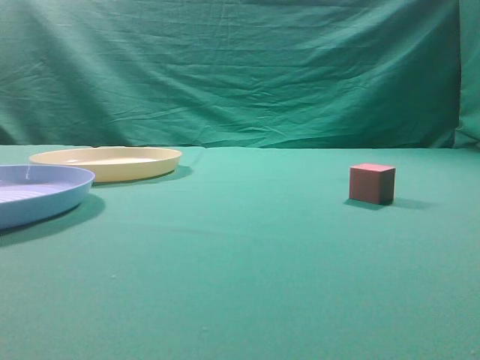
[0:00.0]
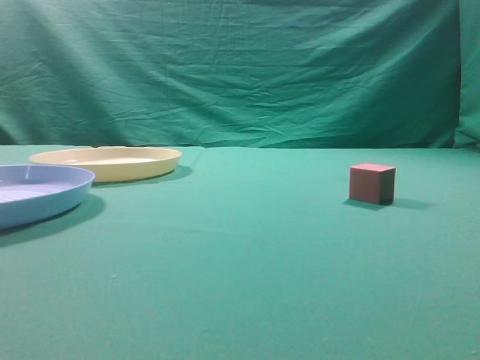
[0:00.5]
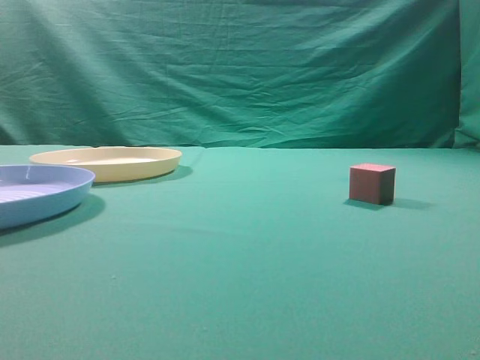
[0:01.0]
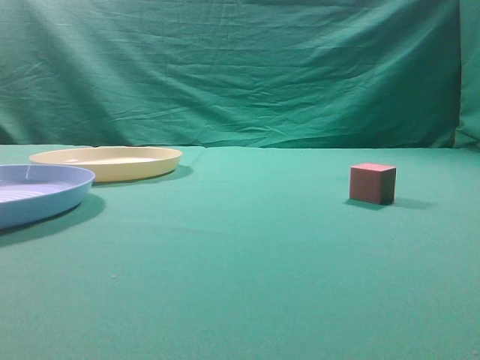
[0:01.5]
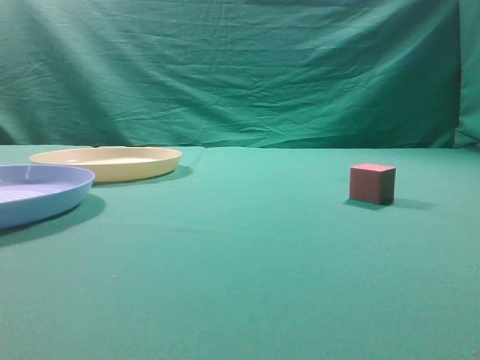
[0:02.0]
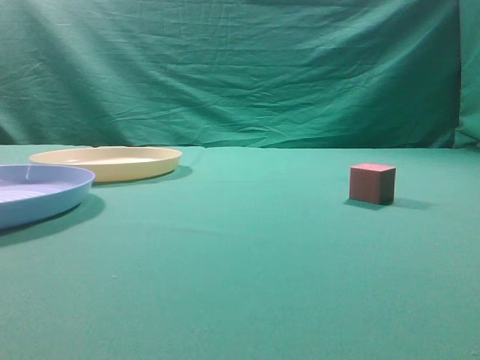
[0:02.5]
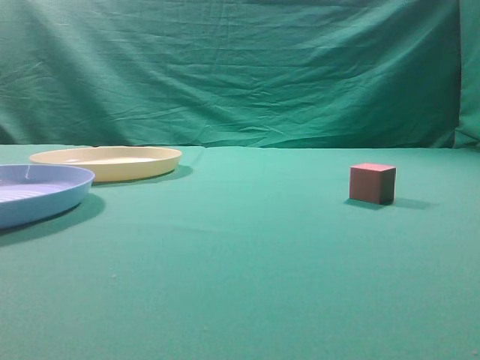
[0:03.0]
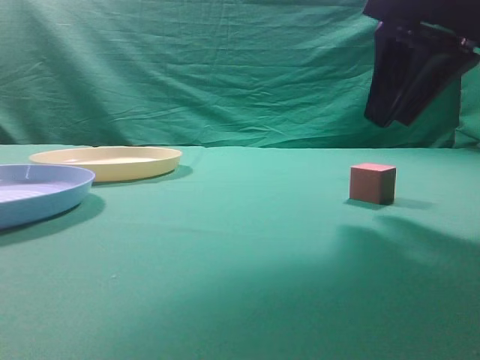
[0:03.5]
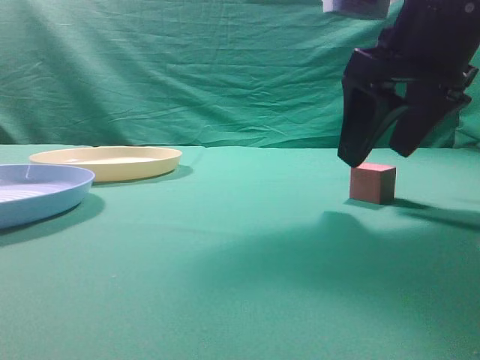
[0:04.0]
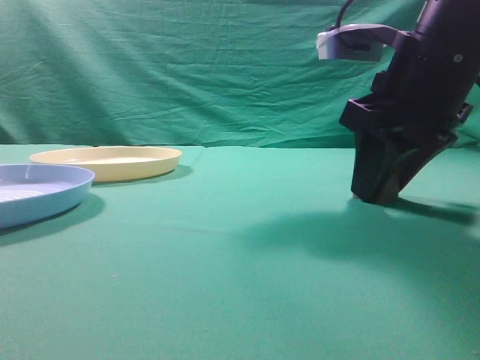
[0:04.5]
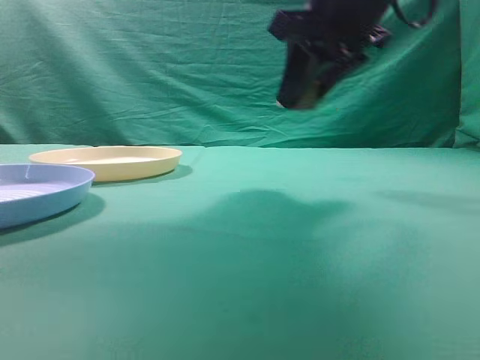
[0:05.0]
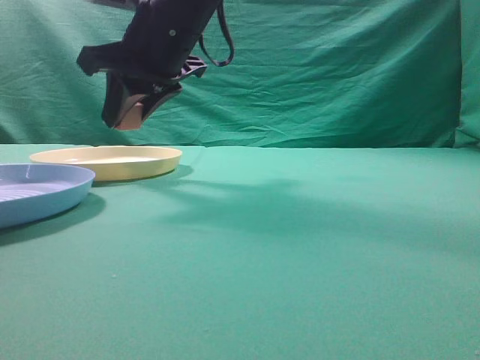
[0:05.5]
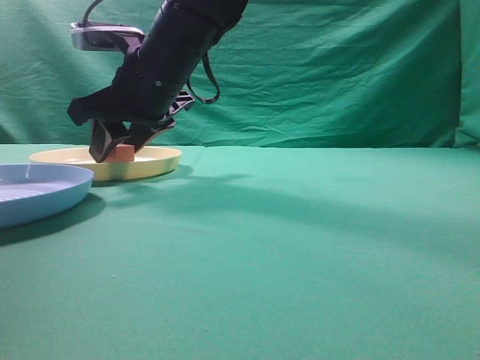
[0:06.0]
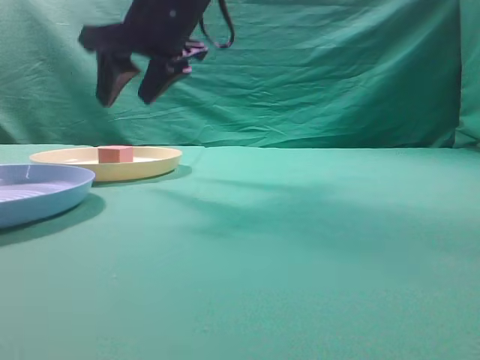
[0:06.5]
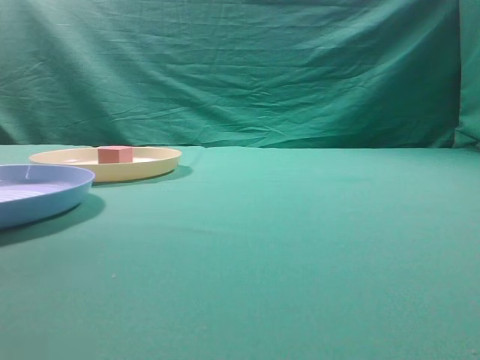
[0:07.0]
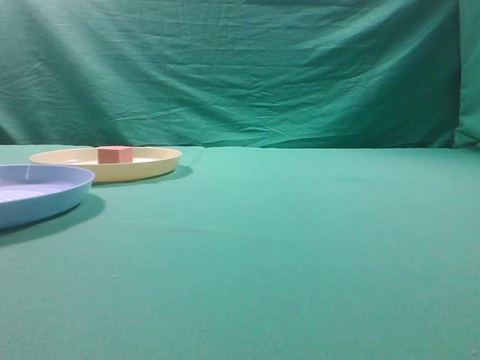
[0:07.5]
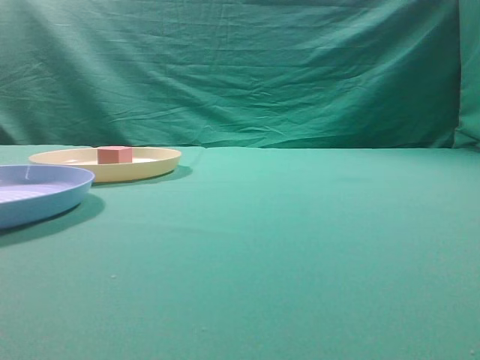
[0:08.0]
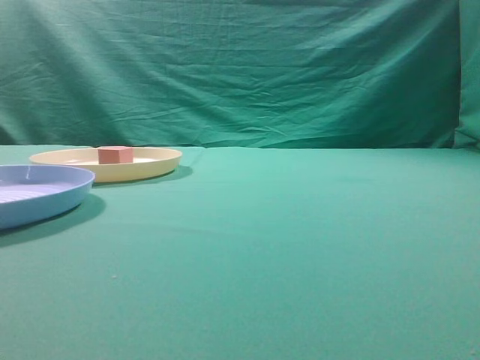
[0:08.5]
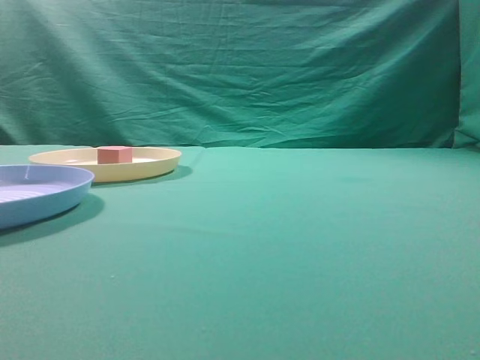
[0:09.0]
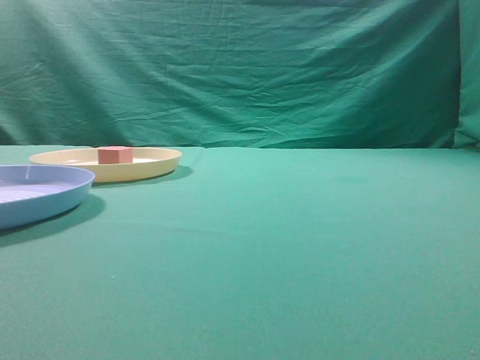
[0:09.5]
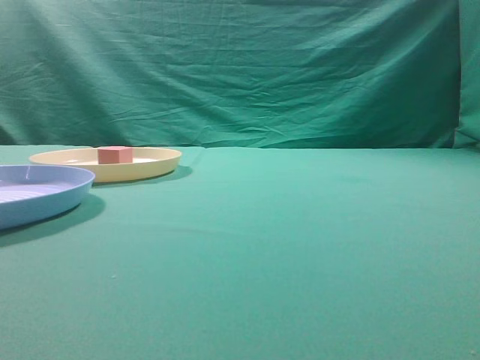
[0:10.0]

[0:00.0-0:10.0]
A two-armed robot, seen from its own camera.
Task of the whole recording: pick up the cube block from the table and put it on the plate.
Step, 0:00.0 to 0:04.5: Grasp the small cube on the table.
Step, 0:05.0 to 0:06.5: Place it into the yellow plate.
0:02.0 to 0:04.0: The right gripper moves forward and to the left, about 25 cm, and opens up.
0:04.0 to 0:06.0: The right gripper is displaced to the left and forward by some 25 cm.
0:06.0 to 0:08.0: The right gripper moves backward, to the right and upward, about 60 cm, and closes.
